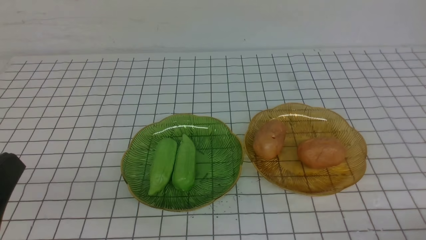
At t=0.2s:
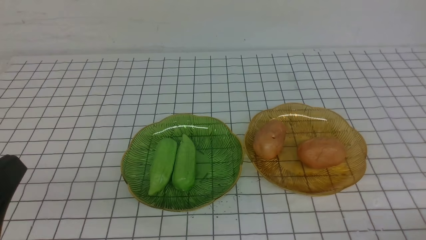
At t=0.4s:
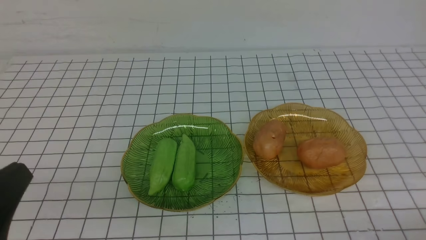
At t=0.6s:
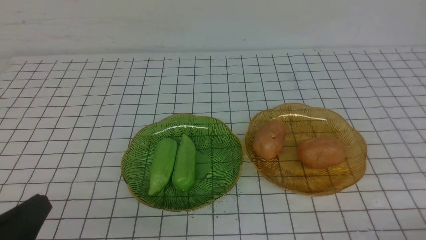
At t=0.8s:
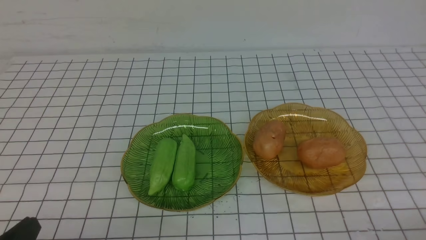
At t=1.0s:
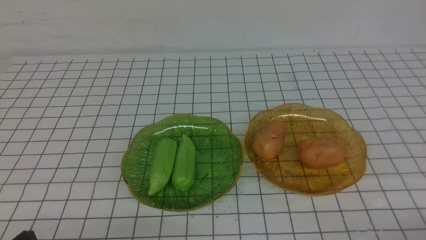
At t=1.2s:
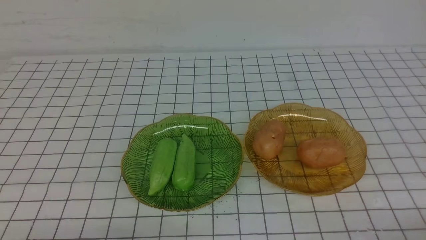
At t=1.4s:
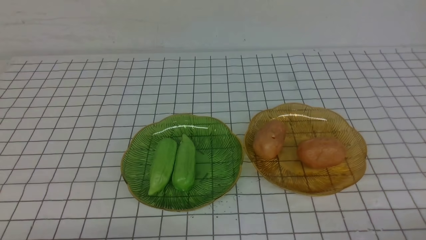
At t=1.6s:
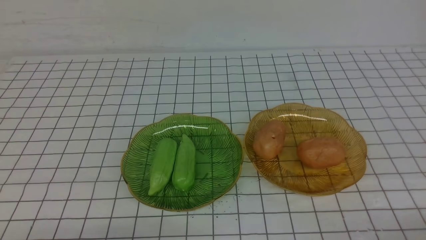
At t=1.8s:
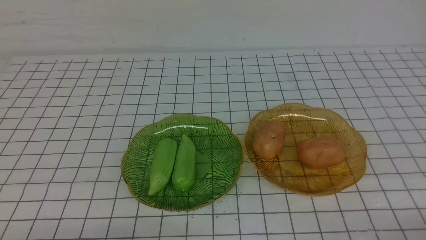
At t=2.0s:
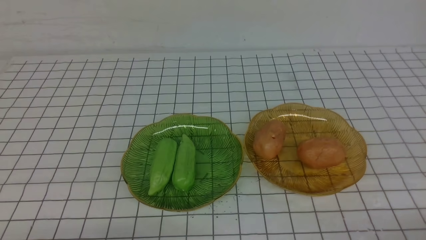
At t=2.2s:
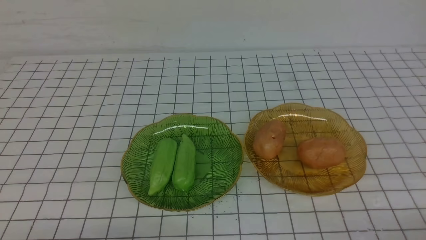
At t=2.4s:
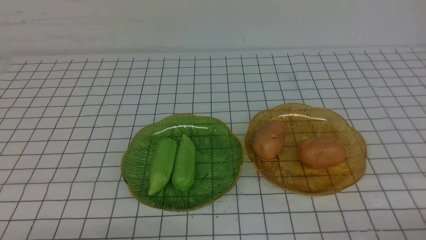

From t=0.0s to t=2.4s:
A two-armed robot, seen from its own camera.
From t=0.0s to t=1.2s: The left gripper goes about 10 cm downward.
From t=1.2s to t=2.4s: Both grippers stay about where they are.
